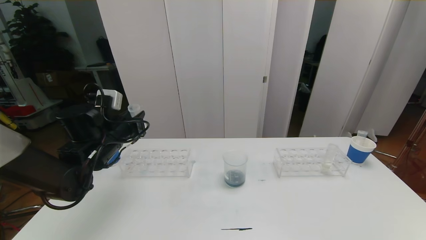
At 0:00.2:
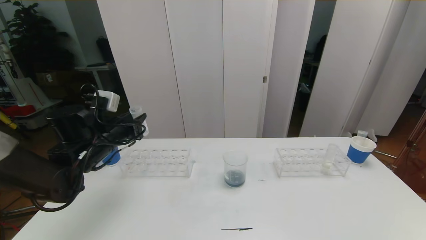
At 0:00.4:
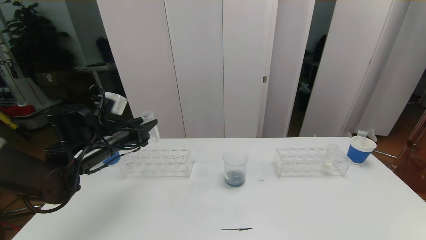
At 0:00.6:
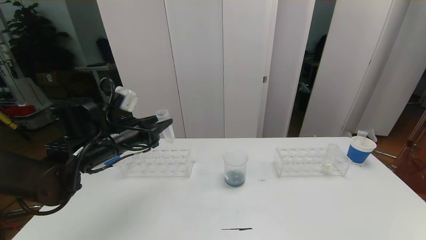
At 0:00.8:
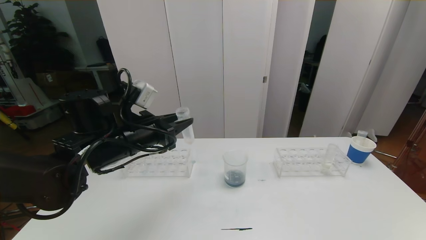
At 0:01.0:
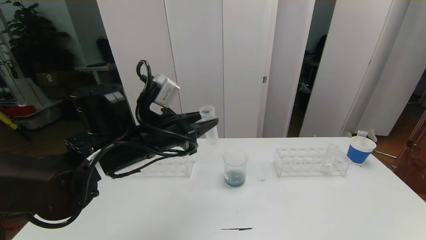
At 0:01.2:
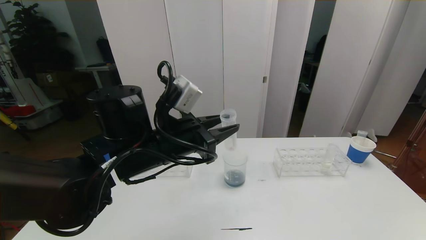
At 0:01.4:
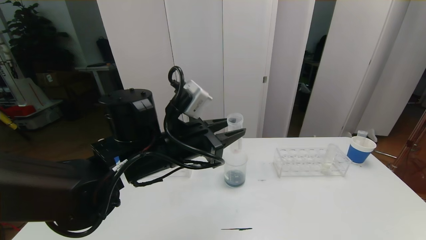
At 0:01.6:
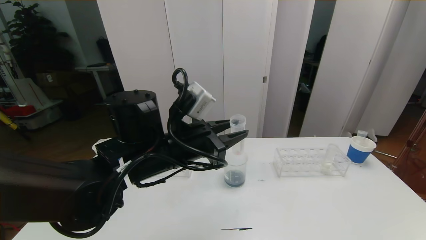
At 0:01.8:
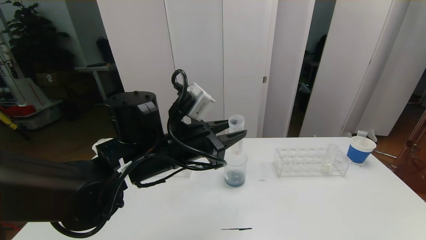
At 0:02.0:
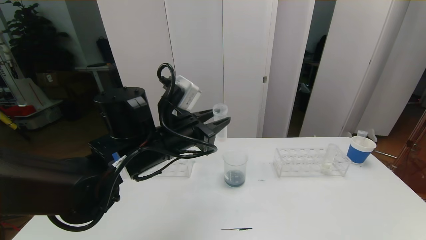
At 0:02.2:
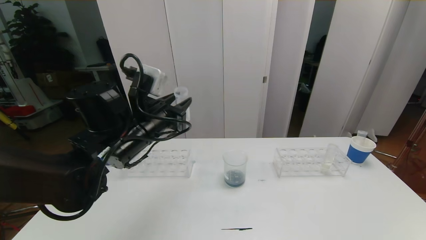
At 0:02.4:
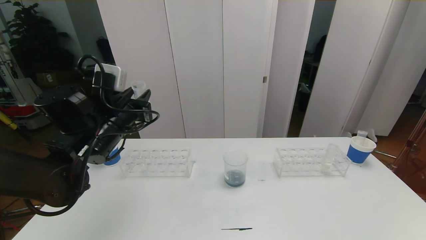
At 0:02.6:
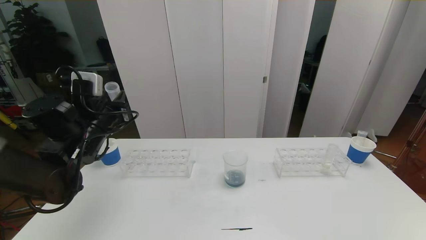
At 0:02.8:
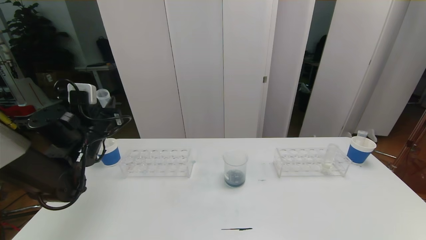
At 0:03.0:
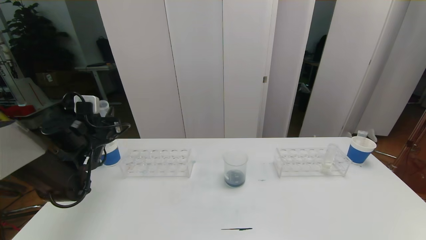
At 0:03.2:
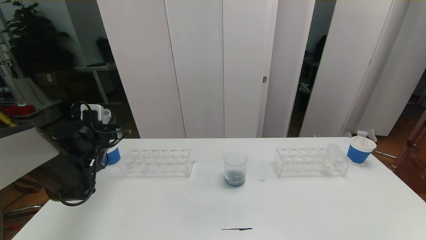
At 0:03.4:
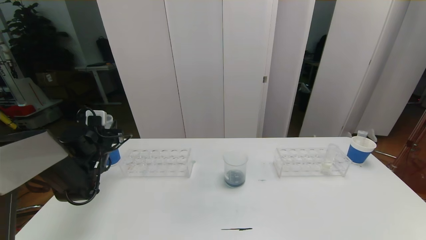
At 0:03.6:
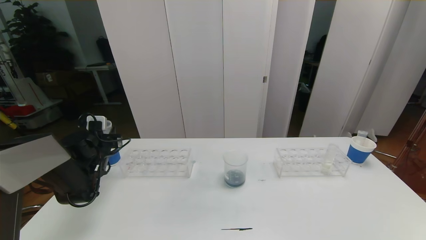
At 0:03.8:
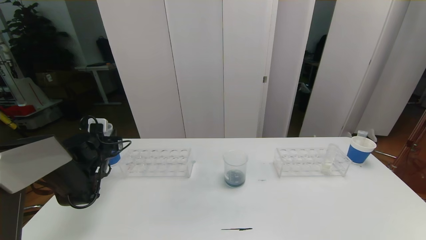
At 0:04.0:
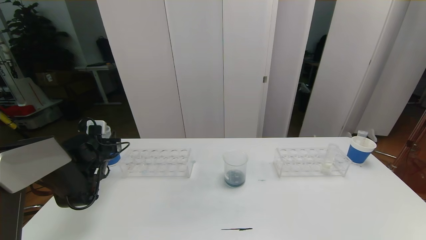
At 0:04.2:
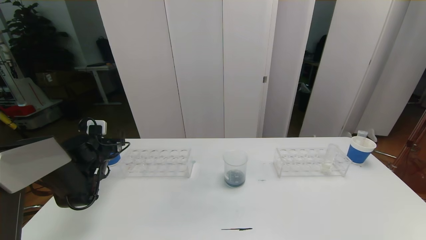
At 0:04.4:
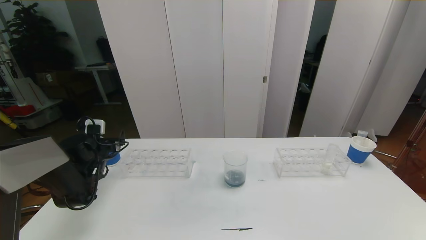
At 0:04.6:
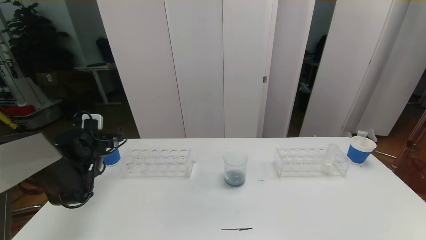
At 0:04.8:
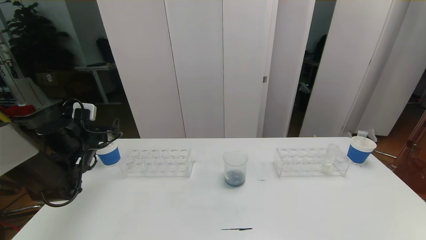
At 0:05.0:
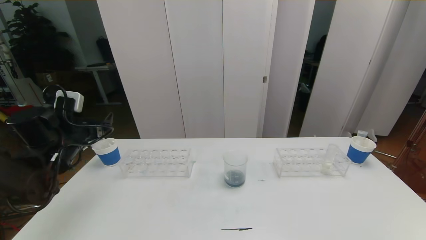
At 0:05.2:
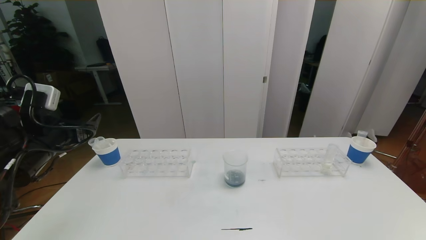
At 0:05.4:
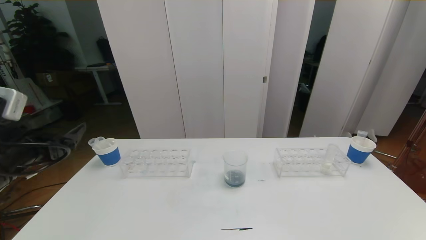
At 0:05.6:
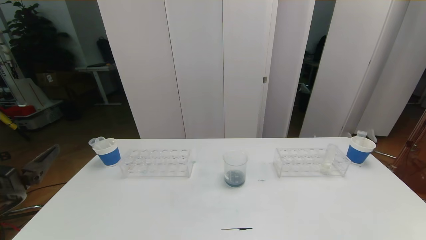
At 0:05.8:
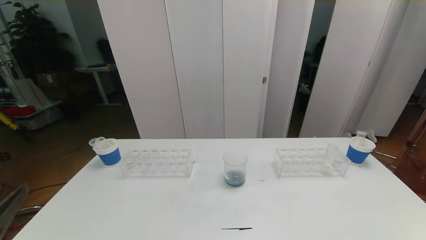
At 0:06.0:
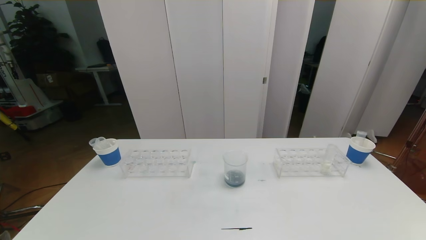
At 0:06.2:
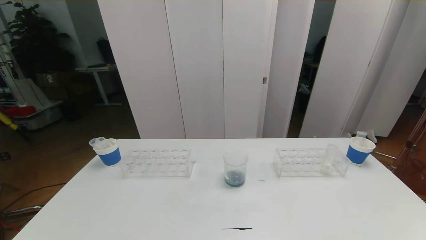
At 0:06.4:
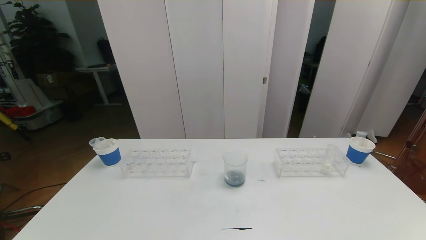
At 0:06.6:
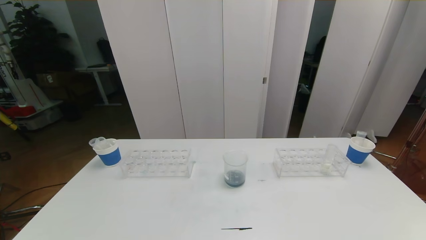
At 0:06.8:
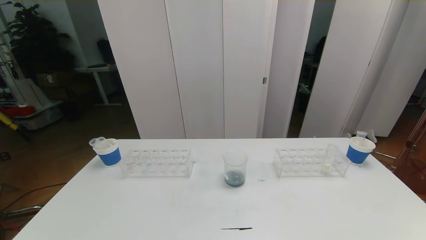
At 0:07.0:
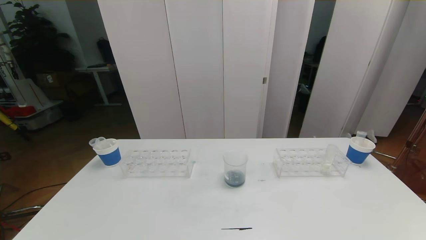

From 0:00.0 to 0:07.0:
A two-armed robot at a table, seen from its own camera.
Task of the whole recording: pick up the test tube with red pigment the test tube with blue pigment and the test tube with white pigment by grippers and pour them into the beaker.
From 0:00.0 to 0:01.4: The left gripper is displaced to the right and backward by some 20 cm.
From 0:01.4 to 0:02.8: The left gripper travels to the left and forward by about 25 cm.
From 0:02.8 to 0:04.2: The left gripper travels downward, to the left and forward by some 15 cm, and opens.
From 0:04.2 to 0:05.6: The left gripper goes roughly 35 cm backward and upward.
